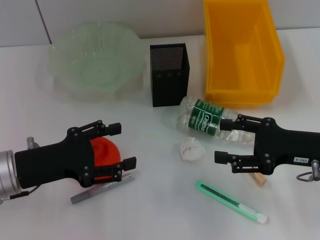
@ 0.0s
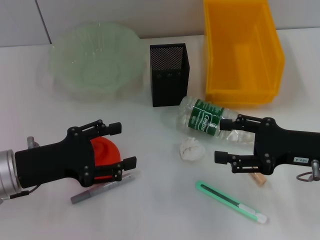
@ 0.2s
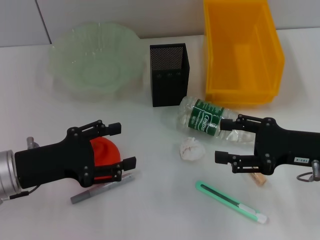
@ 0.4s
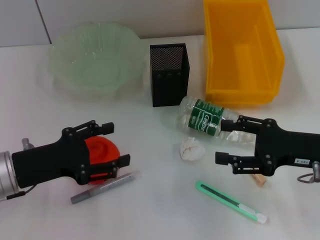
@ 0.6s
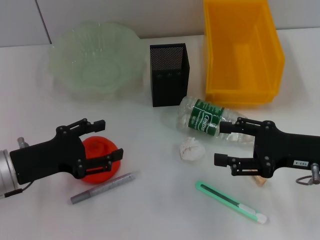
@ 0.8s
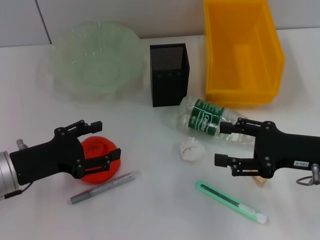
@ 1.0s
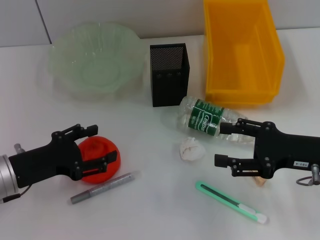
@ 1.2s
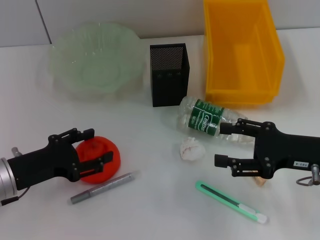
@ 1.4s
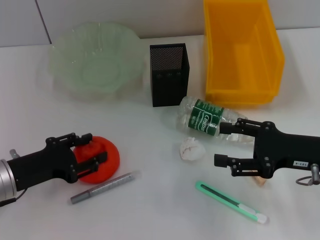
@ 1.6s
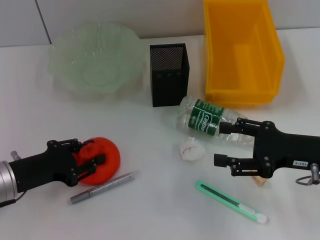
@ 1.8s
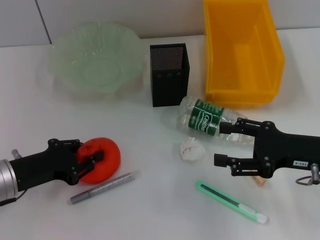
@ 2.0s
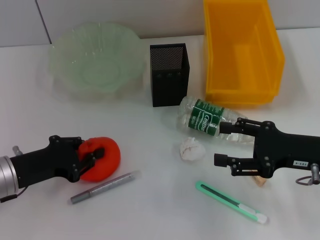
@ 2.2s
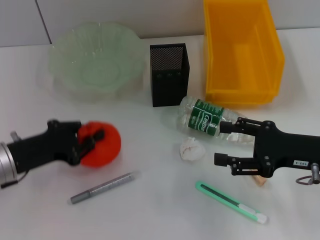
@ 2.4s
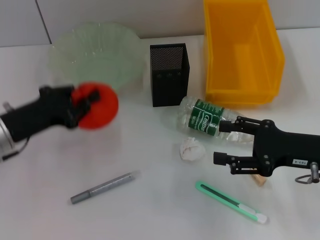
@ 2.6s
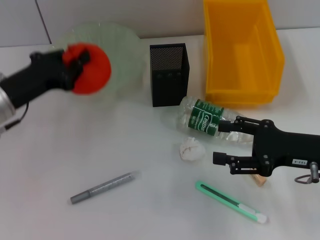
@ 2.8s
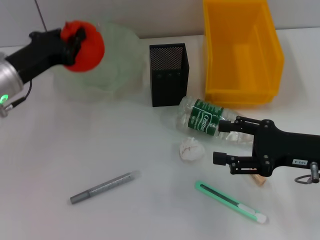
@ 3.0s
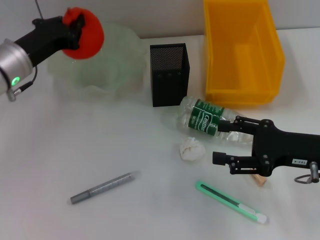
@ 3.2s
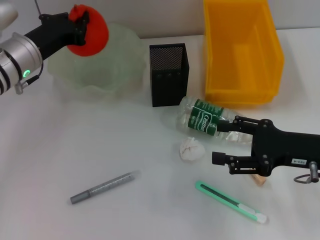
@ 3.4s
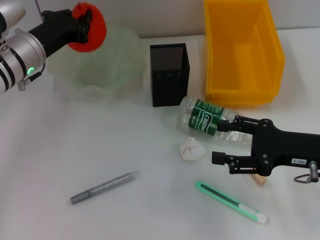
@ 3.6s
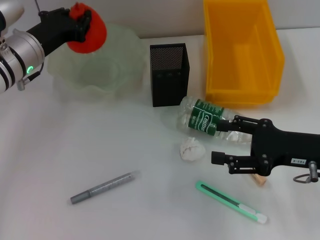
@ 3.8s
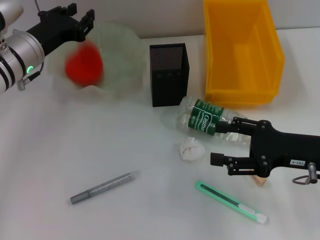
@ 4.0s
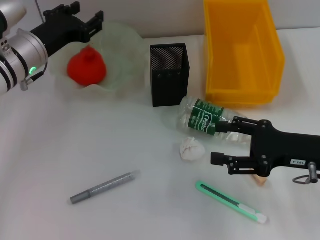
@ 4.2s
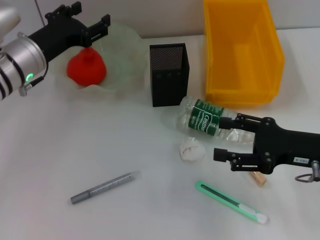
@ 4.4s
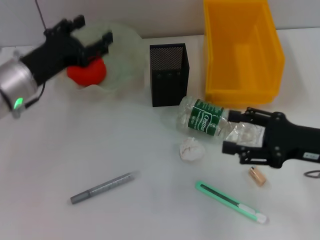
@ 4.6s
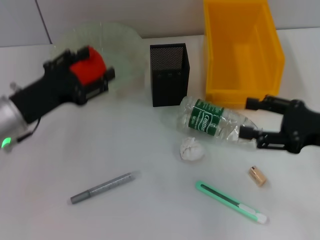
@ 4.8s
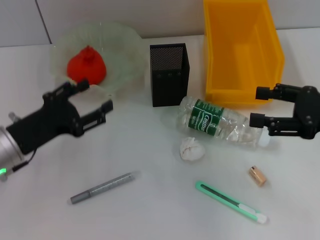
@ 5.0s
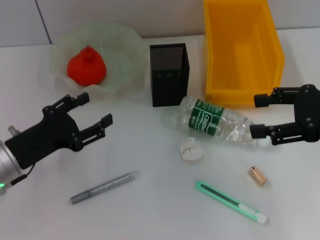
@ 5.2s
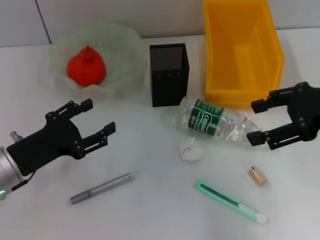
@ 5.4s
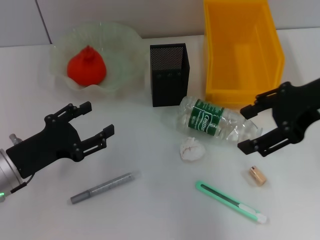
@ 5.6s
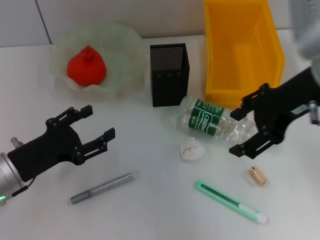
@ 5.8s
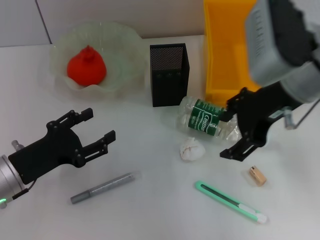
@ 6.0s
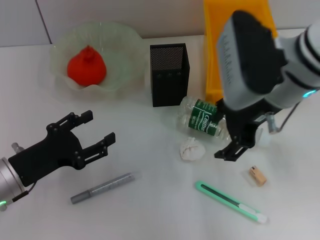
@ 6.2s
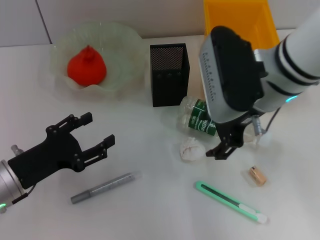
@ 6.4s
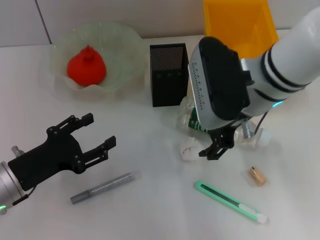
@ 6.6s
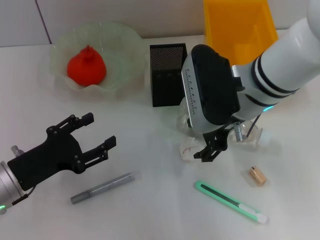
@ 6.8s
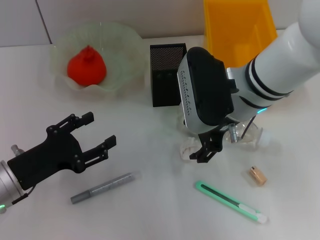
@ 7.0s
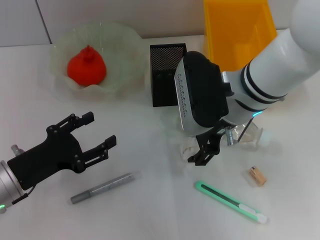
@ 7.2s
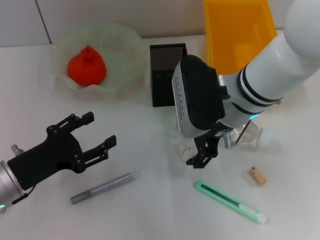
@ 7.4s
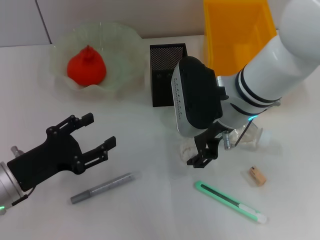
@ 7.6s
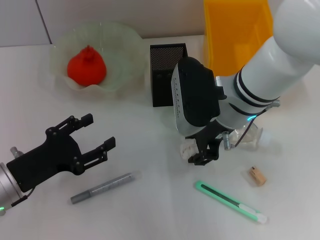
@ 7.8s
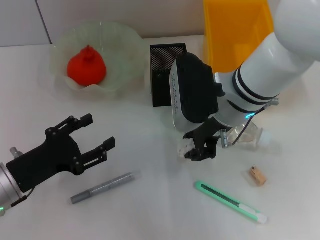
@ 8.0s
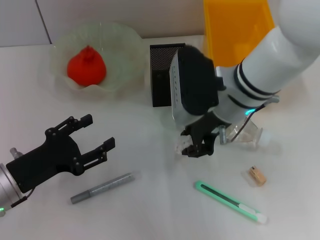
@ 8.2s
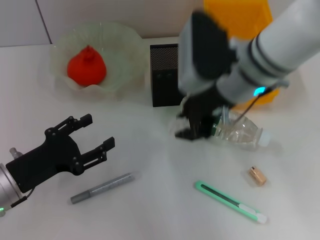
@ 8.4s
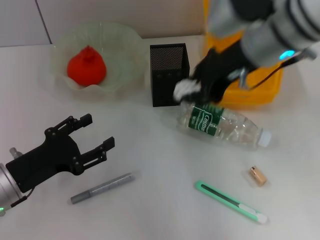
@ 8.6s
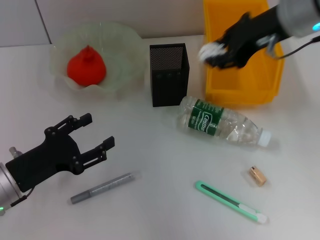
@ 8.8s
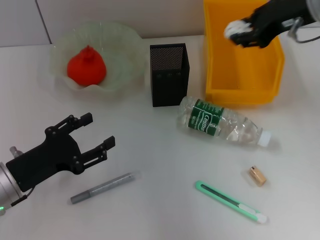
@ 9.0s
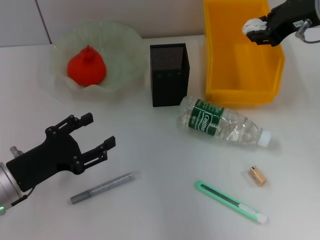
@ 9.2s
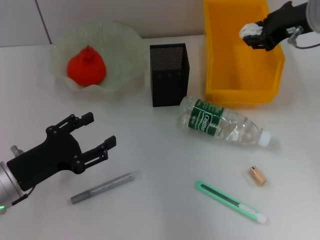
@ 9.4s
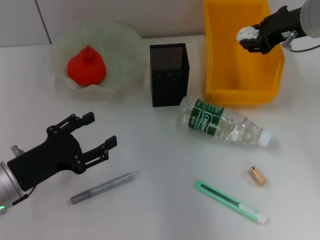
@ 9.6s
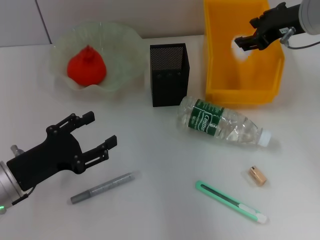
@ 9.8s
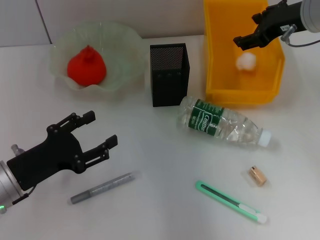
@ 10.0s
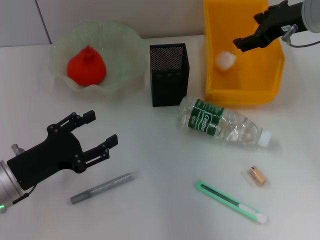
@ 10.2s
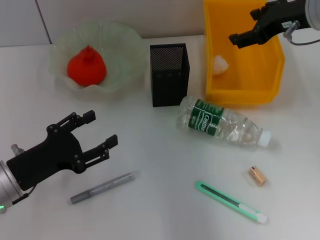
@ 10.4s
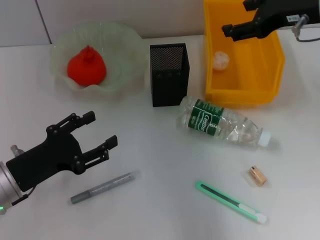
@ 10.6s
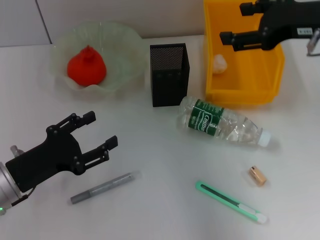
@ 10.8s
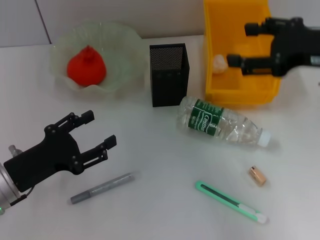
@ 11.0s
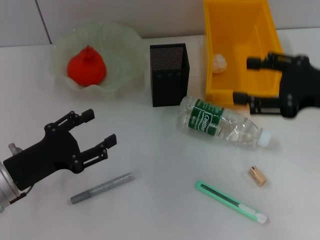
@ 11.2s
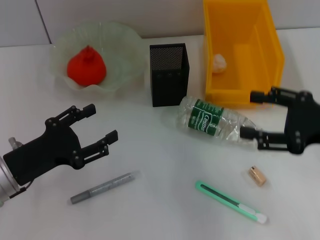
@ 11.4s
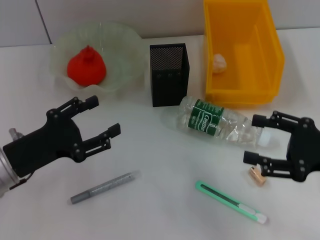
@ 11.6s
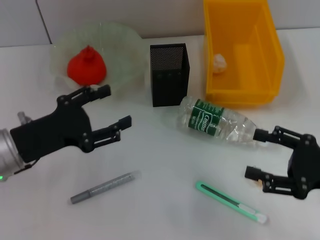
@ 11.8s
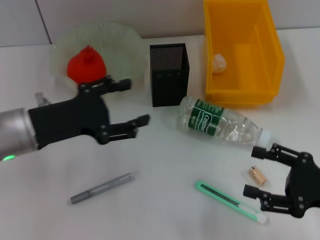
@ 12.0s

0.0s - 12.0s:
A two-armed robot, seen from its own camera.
Step, 0.0s - 2.0s: Grab the orange with the left hand.
Step, 2.2s - 4.2s: Place the orange into the fruit bowl with the left hand.
Step, 4.6s - 7.8s: Grab the paper ball with the right hand.
Step, 8.0s - 10.2s: Place the paper ball into the trash can with the right hand.
0.0s - 1.6s: There are only small adjustments of the grippers.
1.6s - 3.0s: The left gripper goes some 15 cm forward and upward, and closes its fingers.
3.0s - 4.4s: The left gripper opens up.
4.4s - 6.0s: The right gripper goes some 20 cm upward, to the left and forward. Meanwhile the left gripper heads backward and downward, covering about 15 cm.
6.0s - 7.6s: The right gripper is displaced downward and to the left by roughly 10 cm.
7.6s - 9.0s: The right gripper goes approximately 15 cm to the right and upward, and closes its fingers.
9.0s - 10.4s: The right gripper opens up.
10.4s - 12.0s: The left gripper moves upward, about 10 cm. Meanwhile the right gripper travels backward and downward by some 25 cm.

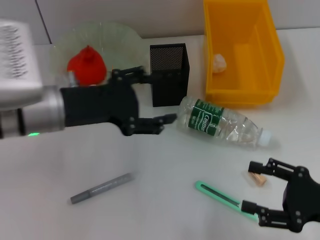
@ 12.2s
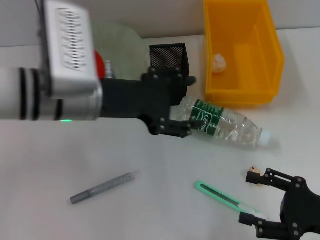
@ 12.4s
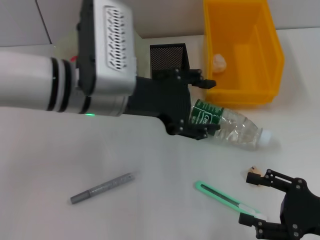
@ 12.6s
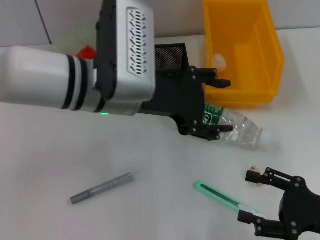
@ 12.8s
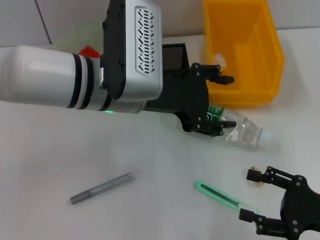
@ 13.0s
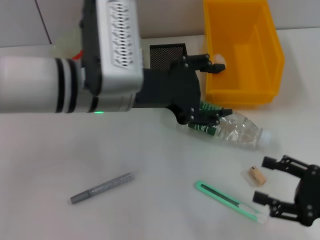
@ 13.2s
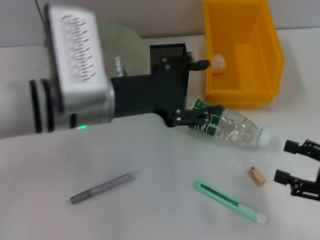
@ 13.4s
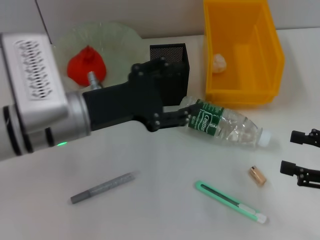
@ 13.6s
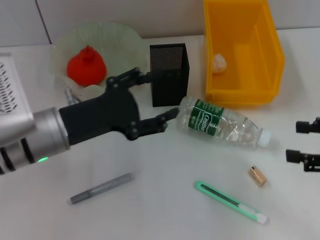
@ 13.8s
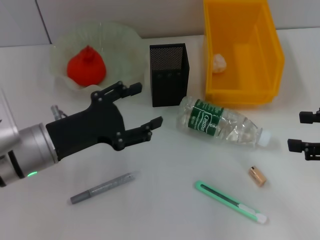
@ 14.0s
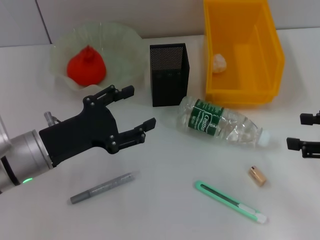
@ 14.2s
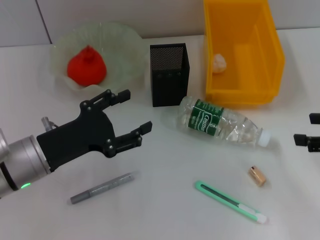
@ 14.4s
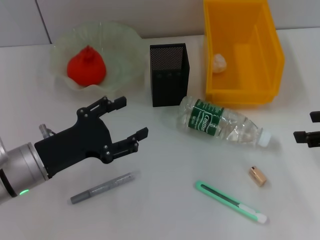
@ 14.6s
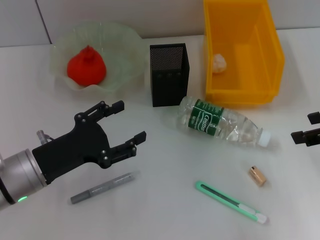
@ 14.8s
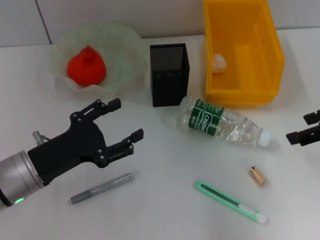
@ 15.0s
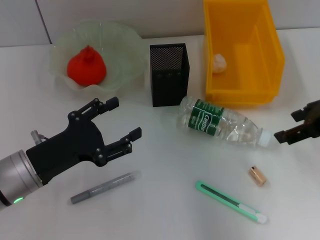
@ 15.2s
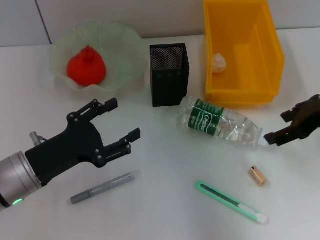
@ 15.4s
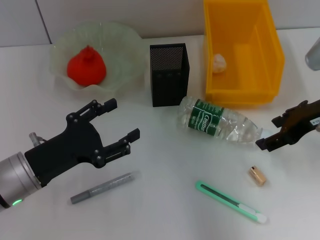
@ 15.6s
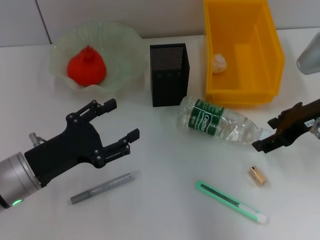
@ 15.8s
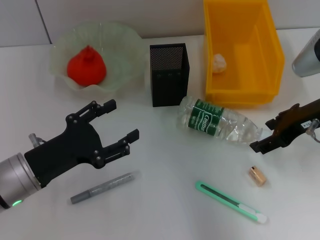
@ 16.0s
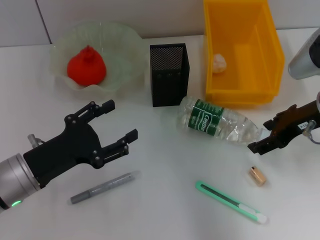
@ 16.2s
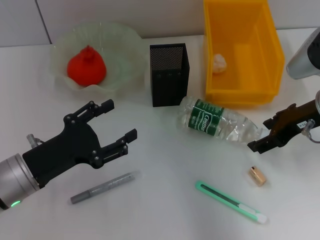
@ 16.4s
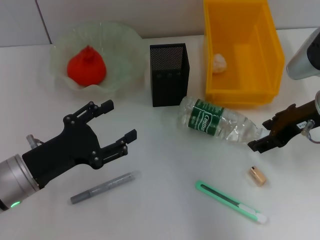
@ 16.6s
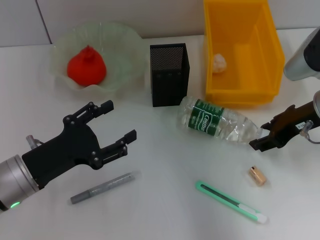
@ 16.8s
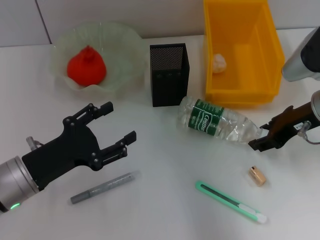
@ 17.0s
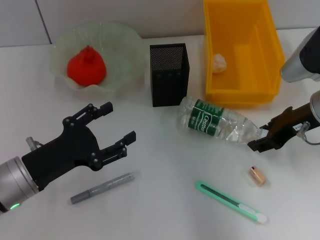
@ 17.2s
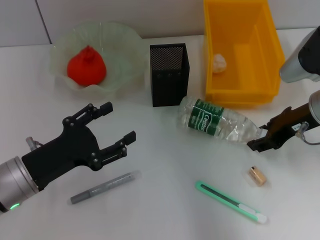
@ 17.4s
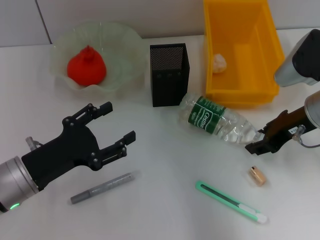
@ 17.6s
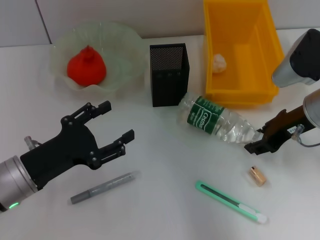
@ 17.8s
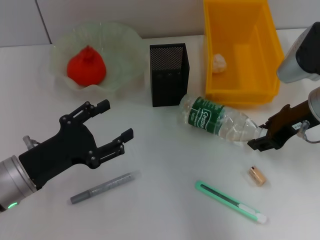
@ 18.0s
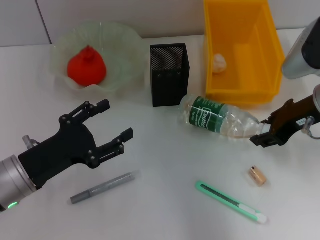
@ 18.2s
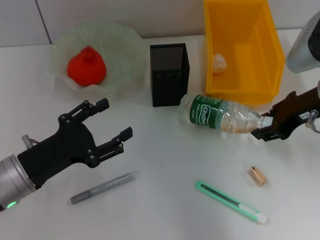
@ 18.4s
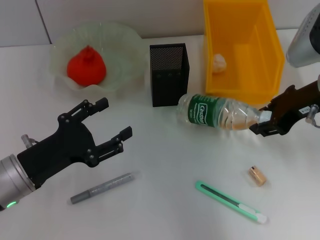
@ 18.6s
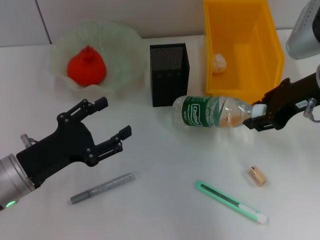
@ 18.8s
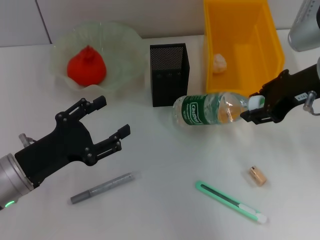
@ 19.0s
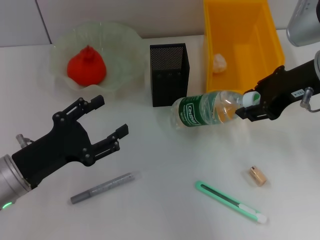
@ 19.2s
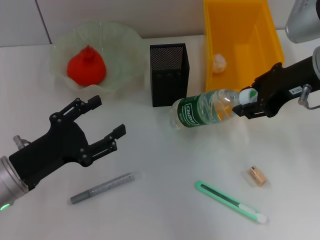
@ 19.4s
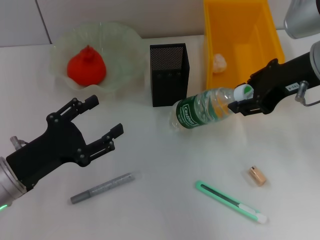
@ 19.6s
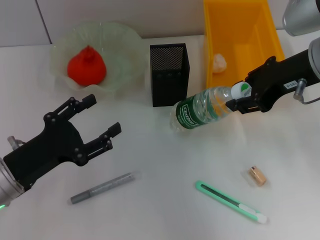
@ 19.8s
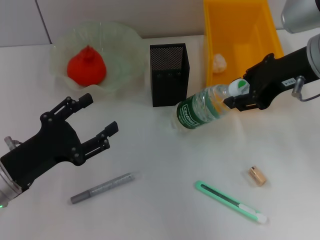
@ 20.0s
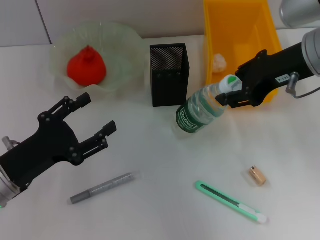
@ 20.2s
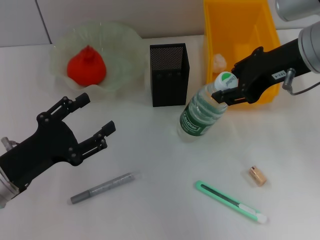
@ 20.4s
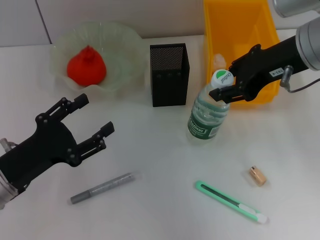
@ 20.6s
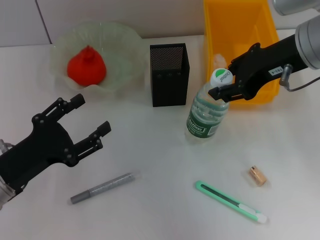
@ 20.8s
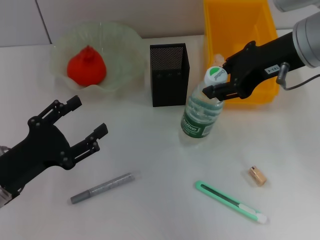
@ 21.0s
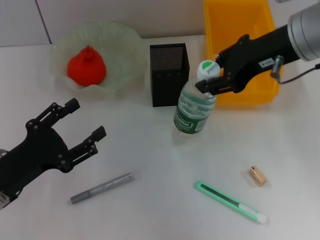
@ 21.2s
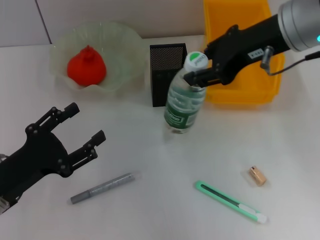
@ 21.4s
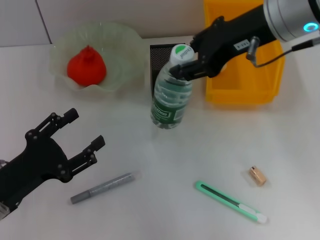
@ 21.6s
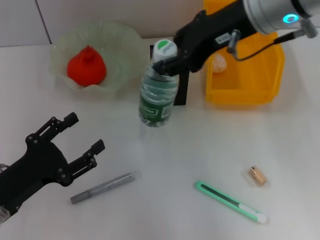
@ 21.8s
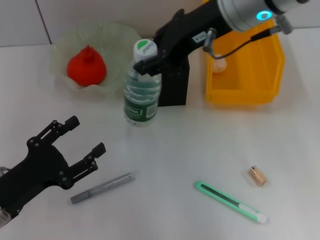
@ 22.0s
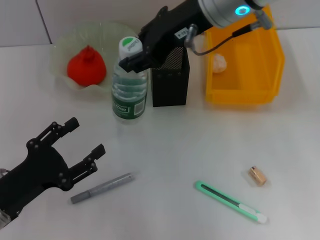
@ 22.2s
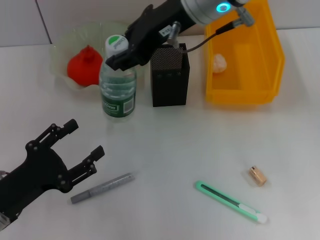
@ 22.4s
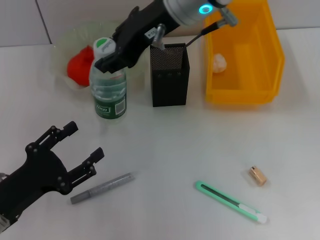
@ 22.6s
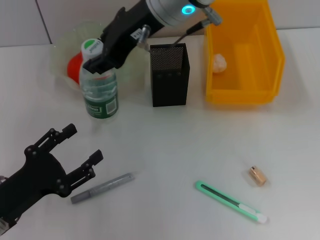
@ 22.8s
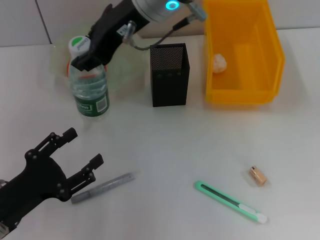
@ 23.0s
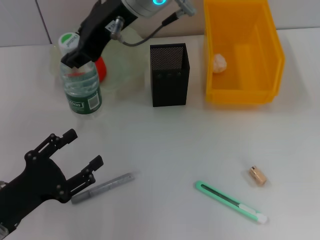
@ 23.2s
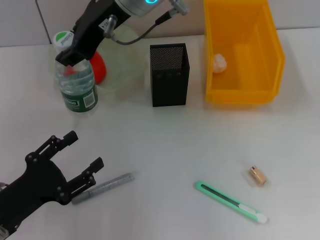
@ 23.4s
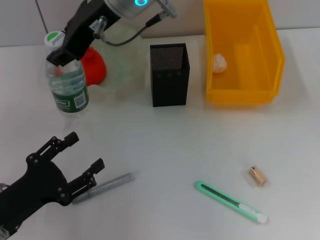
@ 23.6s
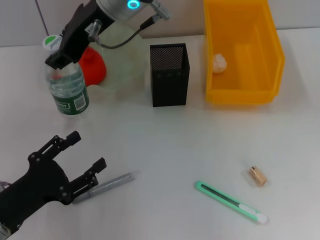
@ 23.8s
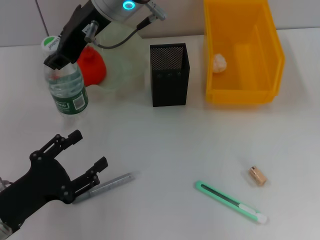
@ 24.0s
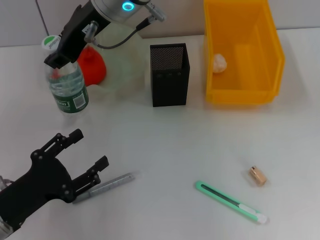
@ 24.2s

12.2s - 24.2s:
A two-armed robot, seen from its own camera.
Step, 12.2s - 17.4s: Grab the water bottle with the right hand.
12.2s - 13.8s: The right gripper moves upward and to the right, roughly 10 cm. Meanwhile the left gripper goes to the right and returns, some 10 cm each way.
13.8s - 15.2s: The right gripper travels forward, to the left and upward by approximately 10 cm. The left gripper goes roughly 5 cm downward.
15.2s - 16.6s: The right gripper changes place by approximately 5 cm.
16.6s - 18.2s: The right gripper closes its fingers.
18.2s - 19.8s: The right gripper shifts about 5 cm upward.
19.8s - 21.2s: The grippers move only a little.
21.2s - 22.6s: The right gripper is displaced to the left by roughly 15 cm.
22.6s - 24.2s: The right gripper shifts approximately 10 cm to the left.
